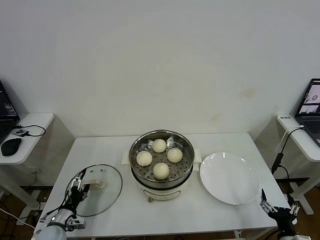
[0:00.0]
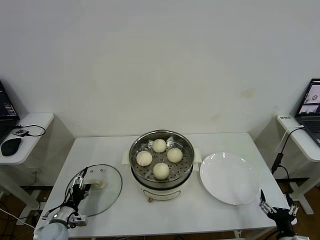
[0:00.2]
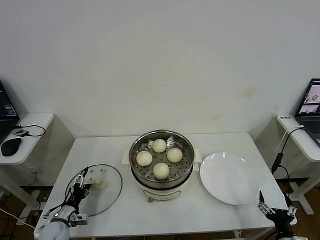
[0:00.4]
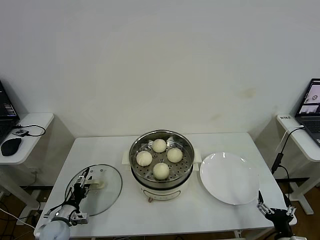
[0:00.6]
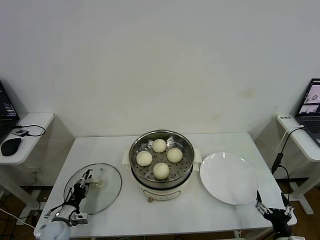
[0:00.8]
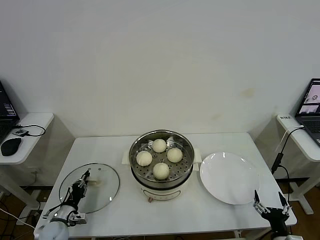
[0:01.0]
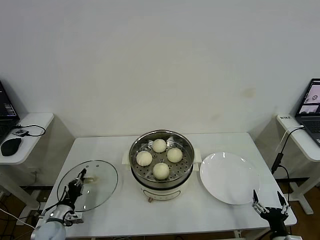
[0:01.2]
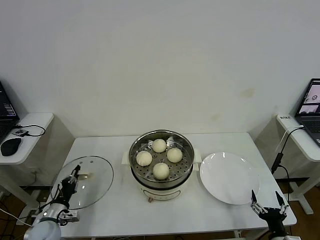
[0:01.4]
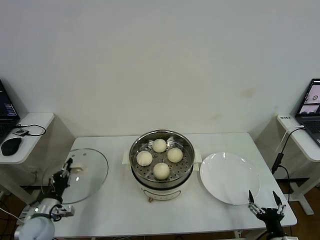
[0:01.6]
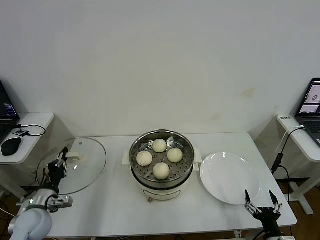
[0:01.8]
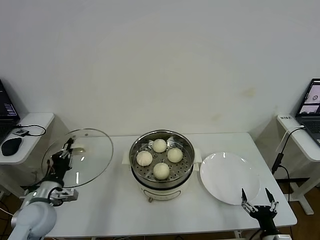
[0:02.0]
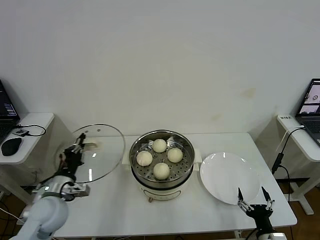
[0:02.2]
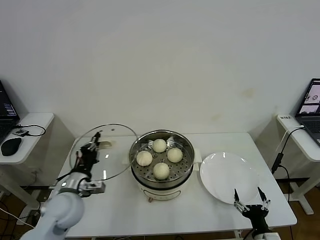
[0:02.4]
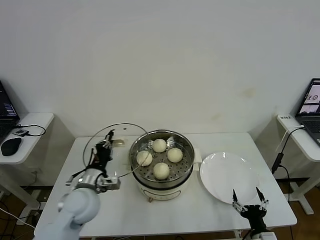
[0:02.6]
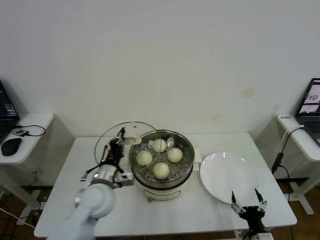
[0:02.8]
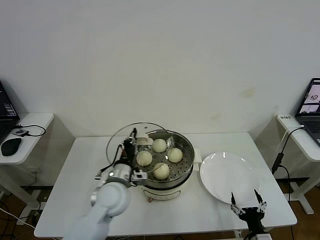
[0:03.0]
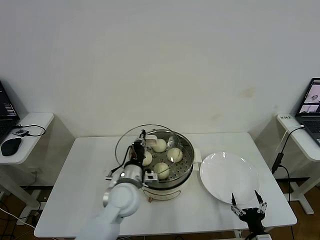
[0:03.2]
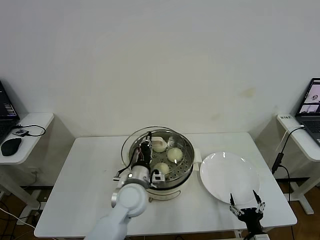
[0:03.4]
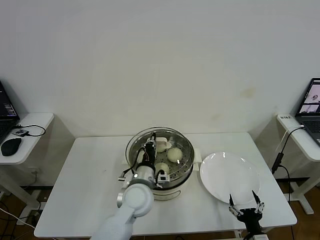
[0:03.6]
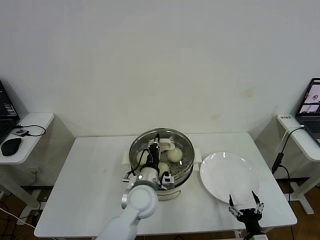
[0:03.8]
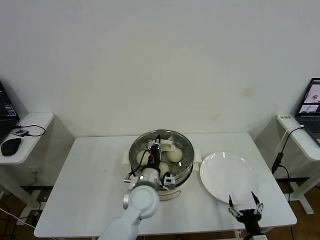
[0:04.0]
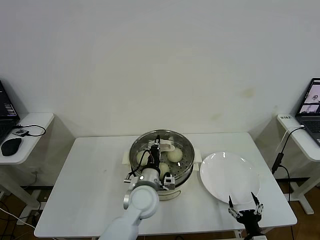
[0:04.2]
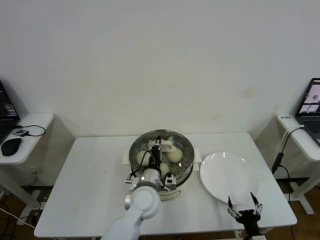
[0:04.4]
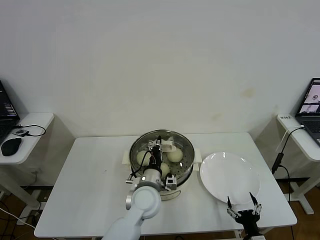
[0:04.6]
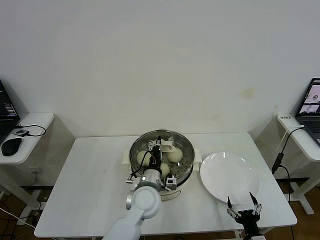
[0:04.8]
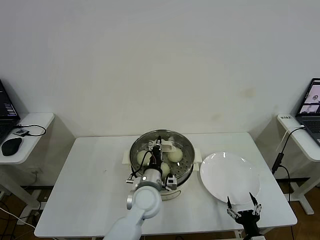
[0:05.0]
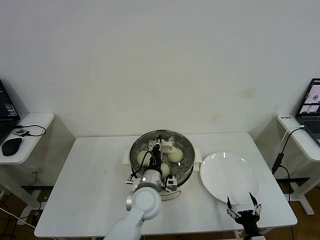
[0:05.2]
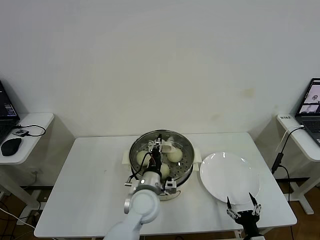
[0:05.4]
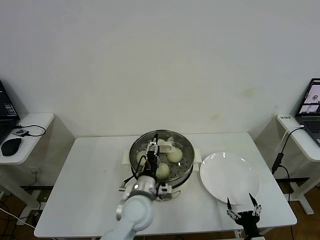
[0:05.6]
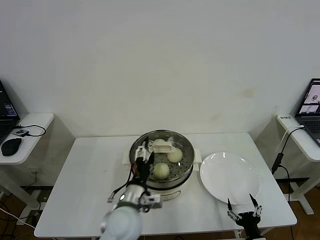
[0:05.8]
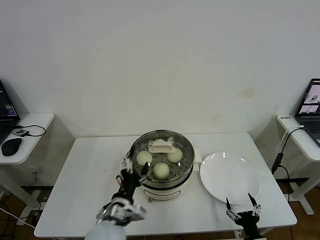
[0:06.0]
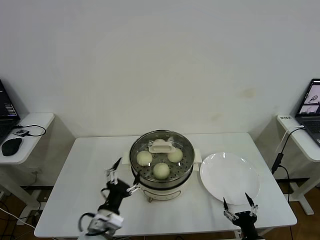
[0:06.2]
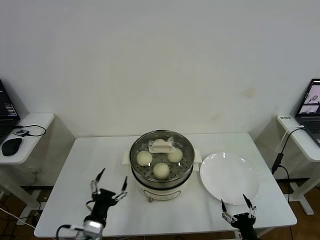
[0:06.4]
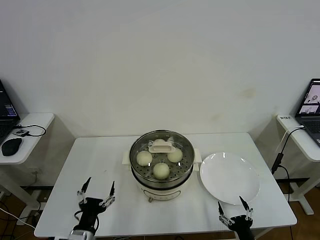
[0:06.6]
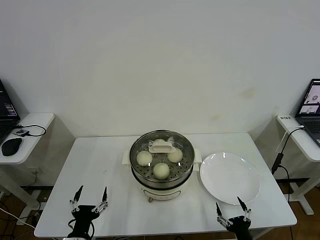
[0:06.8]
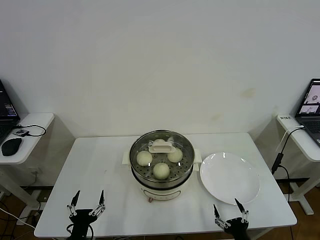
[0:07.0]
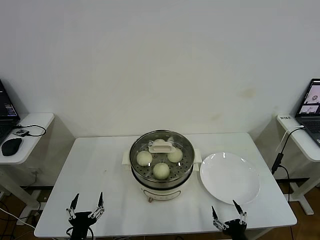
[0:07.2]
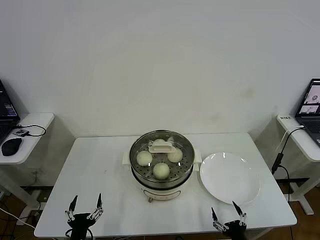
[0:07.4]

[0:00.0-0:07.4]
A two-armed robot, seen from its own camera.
Step, 0:01.4 to 0:05.6: Place the pot lid on the steamer with left gripper.
0:00.0 to 0:01.4: The left gripper closes.
0:01.4 to 0:03.0: The left gripper moves to the right and upward, some 30 cm. The right gripper goes about 5 cm to the left.
0:03.0 to 0:04.4: The left gripper moves to the right, about 10 cm.
0:04.4 to 0:06.0: The left gripper shifts approximately 10 cm backward and to the left, and opens.
0:06.0 to 0:07.4: The left gripper travels to the left, downward and backward by approximately 20 cm.
